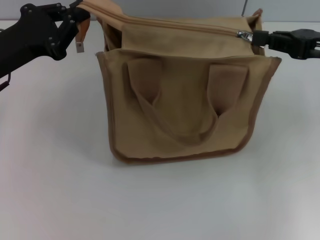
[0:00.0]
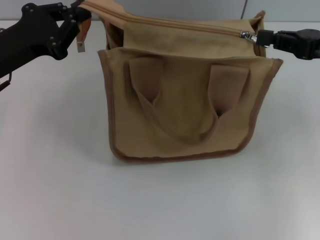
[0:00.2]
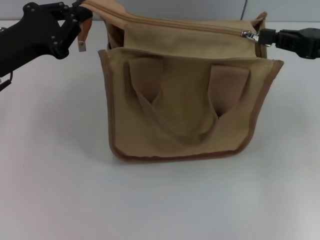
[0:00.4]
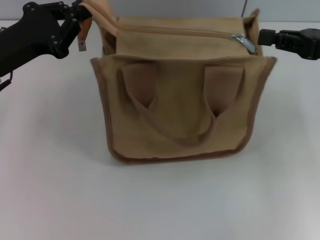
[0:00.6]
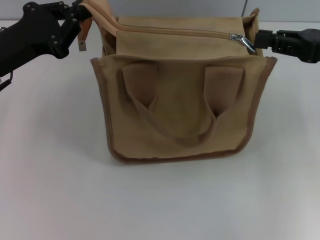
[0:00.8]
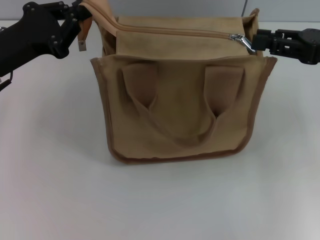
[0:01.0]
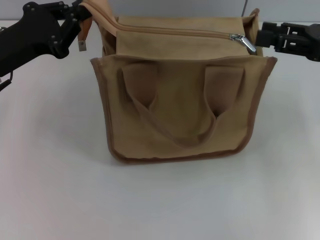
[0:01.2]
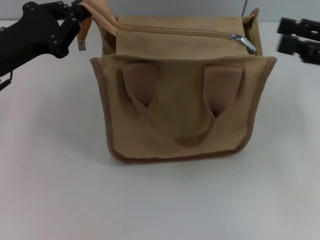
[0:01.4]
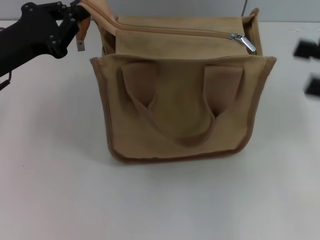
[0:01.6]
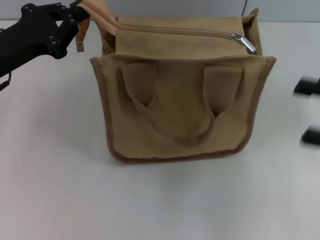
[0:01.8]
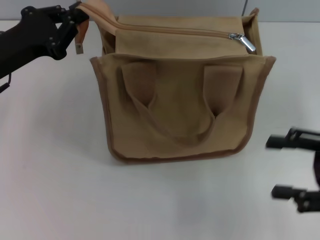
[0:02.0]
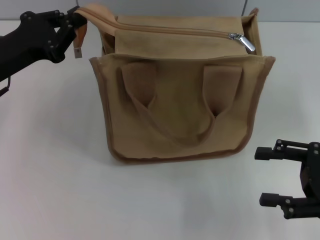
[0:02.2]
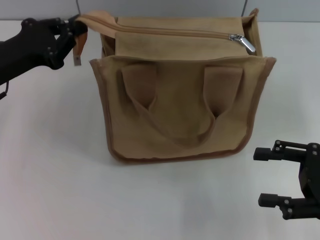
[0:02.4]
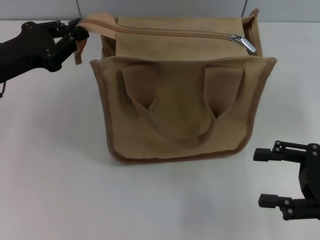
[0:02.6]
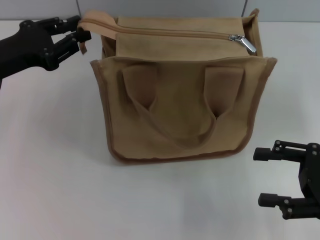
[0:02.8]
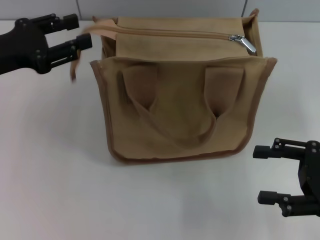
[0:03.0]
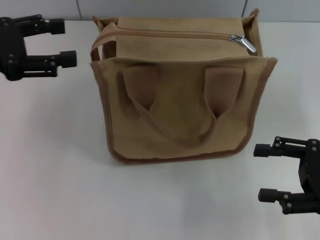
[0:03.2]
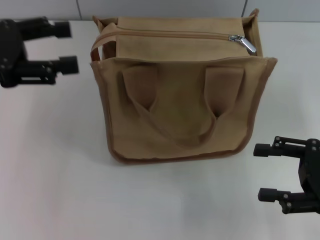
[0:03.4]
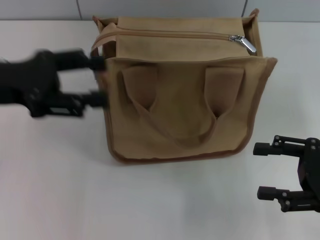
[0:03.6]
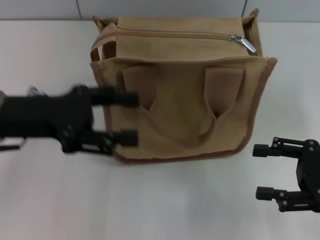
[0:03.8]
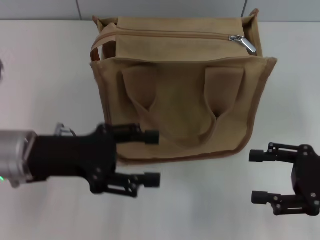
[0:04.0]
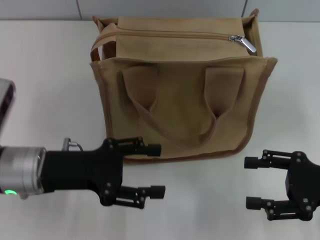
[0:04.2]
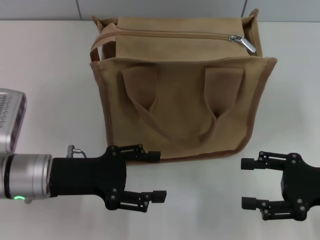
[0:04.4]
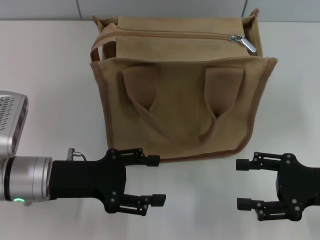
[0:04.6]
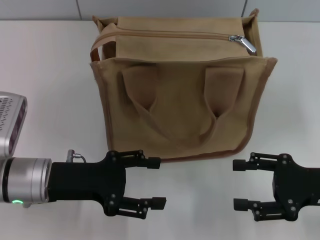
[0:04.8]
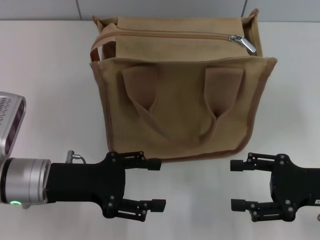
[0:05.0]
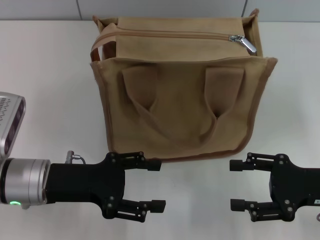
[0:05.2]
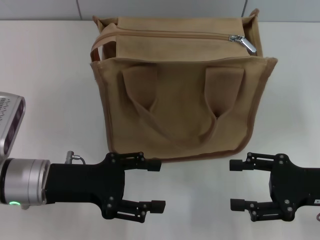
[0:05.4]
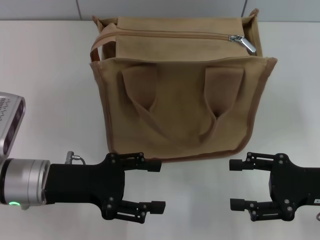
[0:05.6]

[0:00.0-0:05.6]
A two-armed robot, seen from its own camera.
Step, 0:01.2 to 0:03.0: Grab the zipper with your left hand.
0:00.0 to 0:01.4: The right gripper opens its fingers.
0:01.4 to 0:02.8: The right gripper heads downward and backward, covering approximately 10 cm.
0:02.8 to 0:04.2: The left gripper travels to the right, backward and downward by about 10 cm, and opens up.
0:04.2 to 0:05.6: The grippers stay close to where they were, moving slightly.
